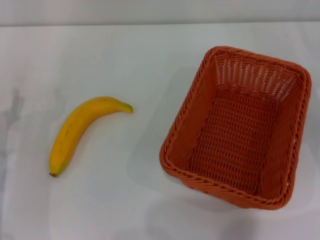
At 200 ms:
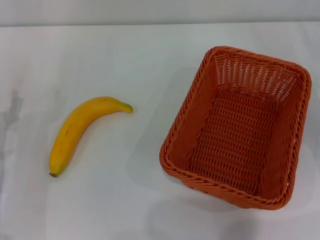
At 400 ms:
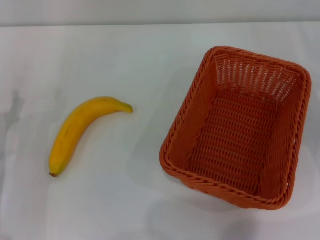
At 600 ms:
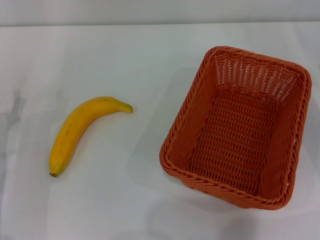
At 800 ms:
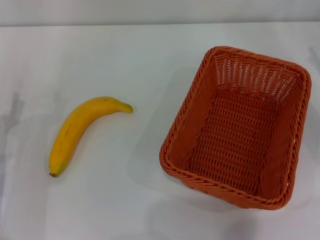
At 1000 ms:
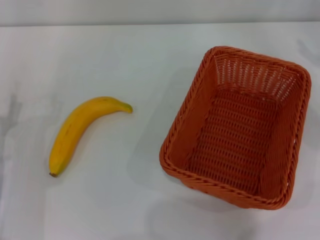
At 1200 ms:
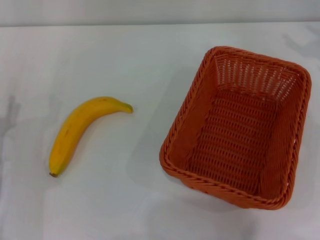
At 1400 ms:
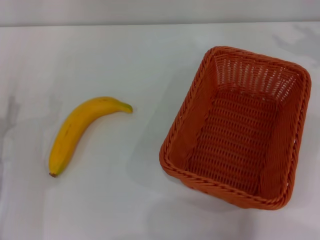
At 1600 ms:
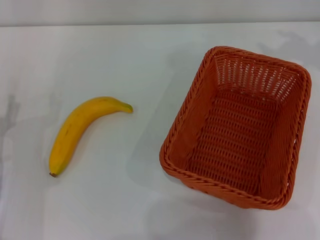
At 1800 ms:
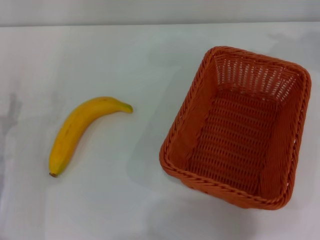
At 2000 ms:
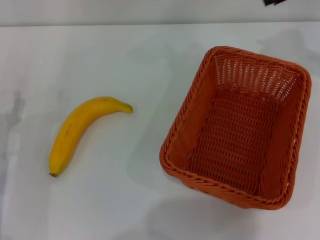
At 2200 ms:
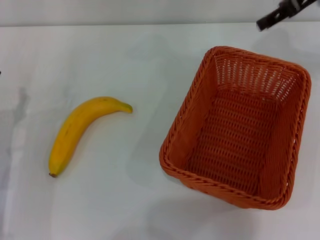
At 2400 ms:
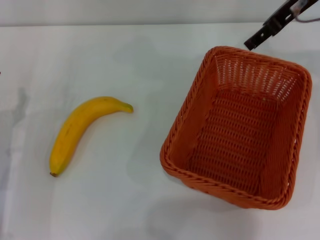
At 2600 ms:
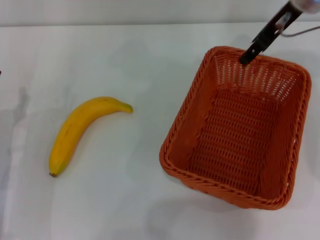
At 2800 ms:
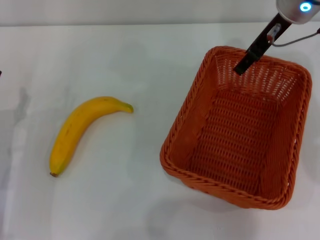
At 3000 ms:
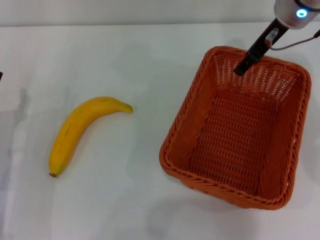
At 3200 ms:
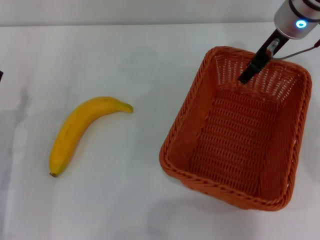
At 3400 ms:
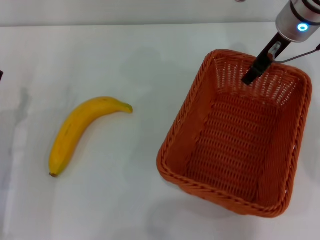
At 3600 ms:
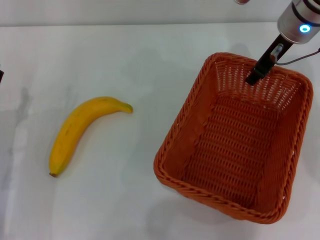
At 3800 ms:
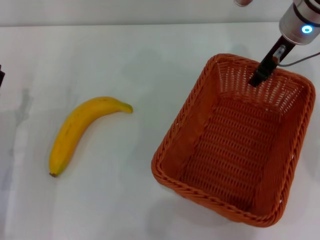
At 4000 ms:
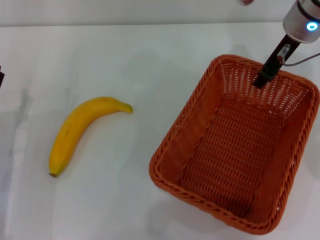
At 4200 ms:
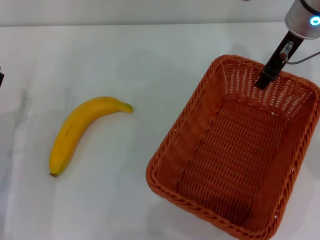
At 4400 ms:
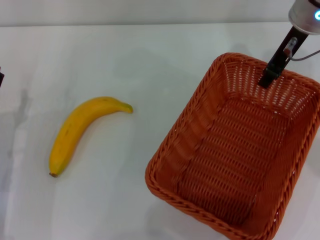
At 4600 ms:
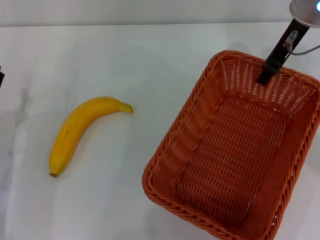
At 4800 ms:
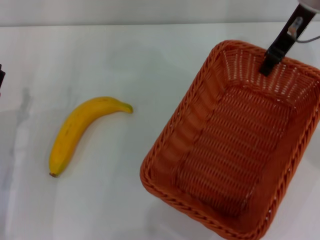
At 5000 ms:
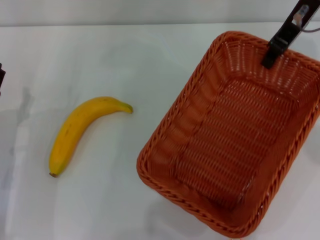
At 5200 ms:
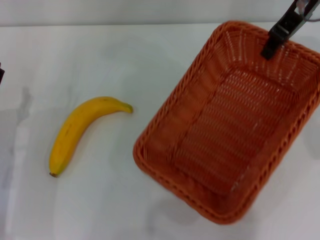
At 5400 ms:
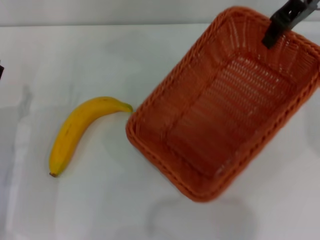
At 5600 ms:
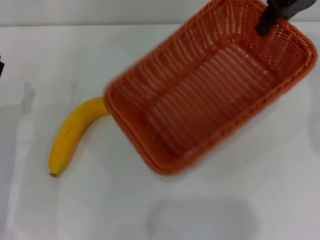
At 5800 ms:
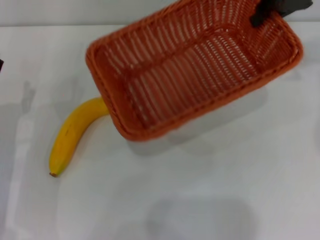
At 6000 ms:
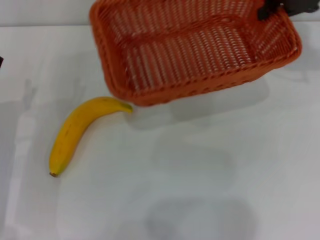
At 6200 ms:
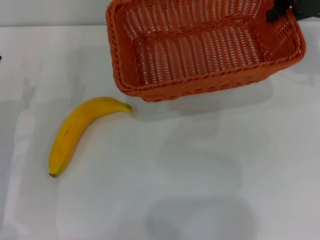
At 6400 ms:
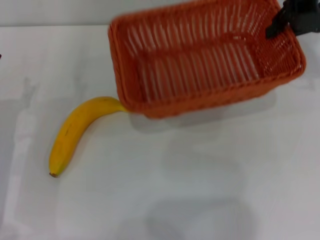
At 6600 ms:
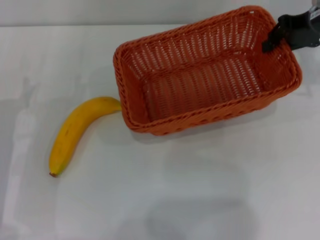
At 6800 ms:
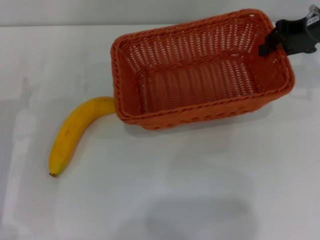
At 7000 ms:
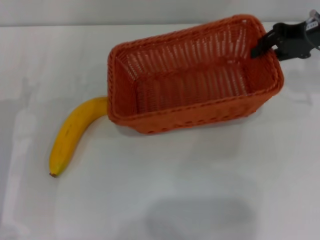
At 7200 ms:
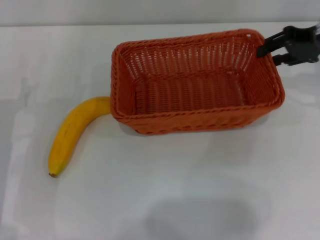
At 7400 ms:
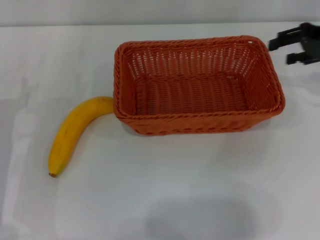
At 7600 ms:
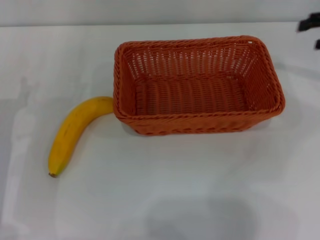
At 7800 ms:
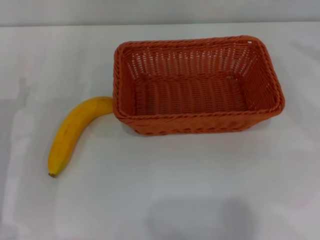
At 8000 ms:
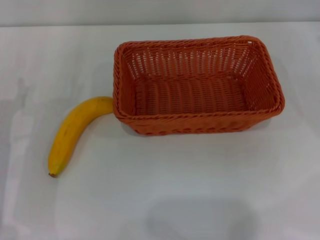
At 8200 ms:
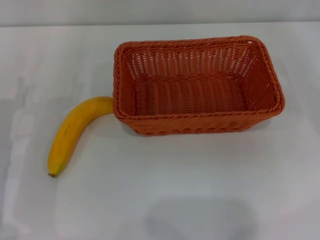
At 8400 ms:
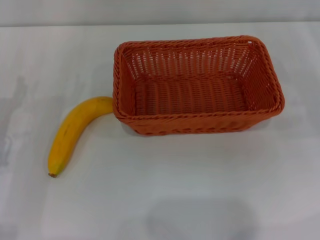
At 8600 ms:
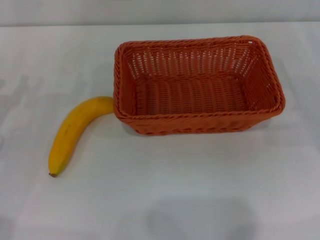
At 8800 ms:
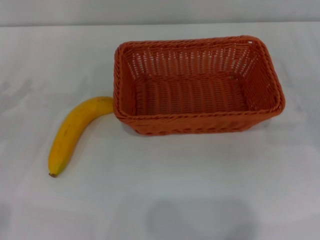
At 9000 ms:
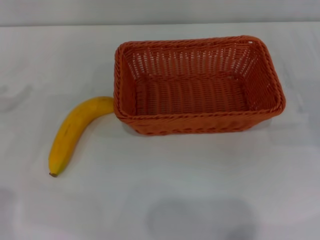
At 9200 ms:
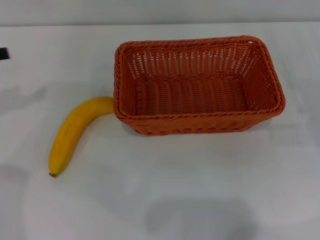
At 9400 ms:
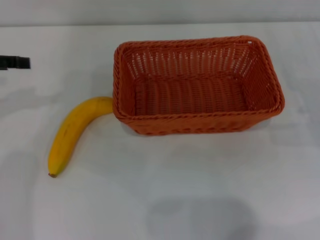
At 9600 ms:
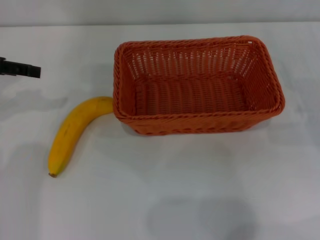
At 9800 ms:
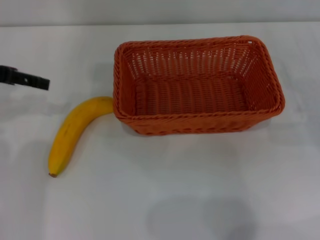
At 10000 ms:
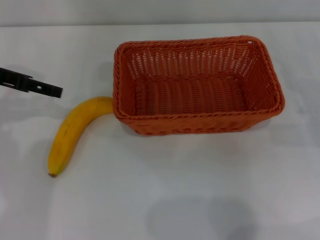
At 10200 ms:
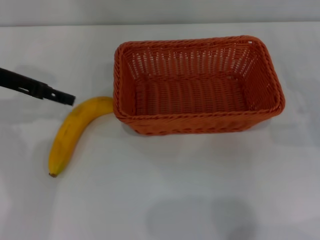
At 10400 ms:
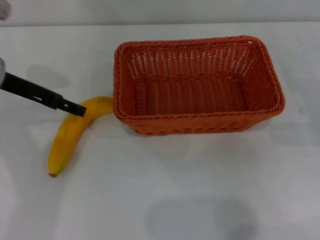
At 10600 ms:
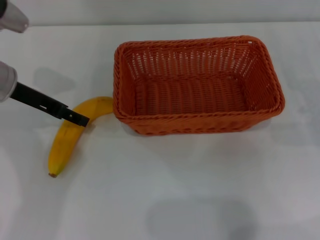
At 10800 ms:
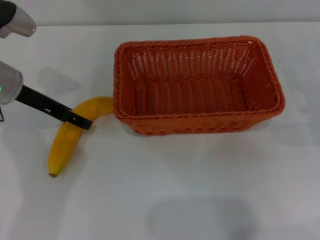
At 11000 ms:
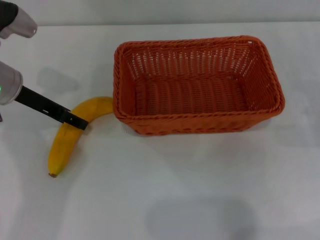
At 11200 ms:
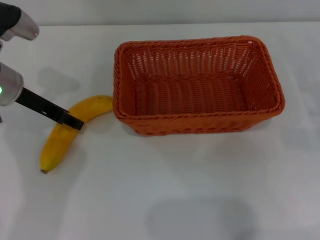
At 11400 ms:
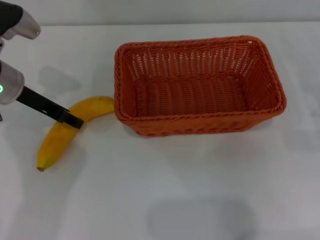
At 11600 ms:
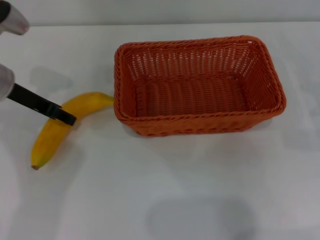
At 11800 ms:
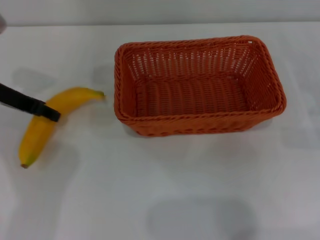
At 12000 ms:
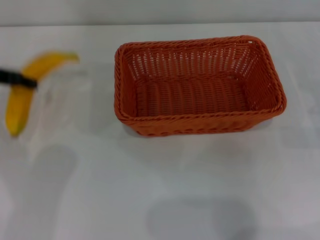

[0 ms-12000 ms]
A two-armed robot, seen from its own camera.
Step, 0 ms to 4400 ms: Pick up the light basket with the right gripper.
Step, 4600 ms to 7200 ms: Place the light basket in the center of view with the right gripper.
Step, 7400 ms to 11800 ms: Pick up the banana with the left gripper.
0 ms to 1600 ms: The right gripper shifts about 20 cm upward and forward.
1600 ms to 3000 ms: The right gripper moves to the left, some 15 cm.
3000 ms to 4400 ms: The right gripper closes its fingers.
4400 ms to 6000 ms: The right gripper goes approximately 10 cm to the right and upward.
6000 ms to 7600 ms: The right gripper shifts about 10 cm to the right and downward, and opens its fingers.
7600 ms to 9000 ms: The right gripper goes approximately 15 cm downward and backward.
9000 ms to 10400 ms: The left gripper is displaced to the right and forward by approximately 15 cm.
10400 ms to 12000 ms: The left gripper ends up roughly 5 cm from where it was, and closes up.

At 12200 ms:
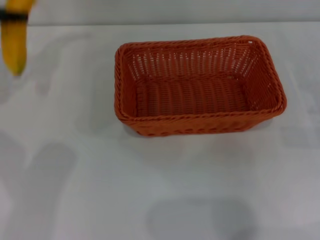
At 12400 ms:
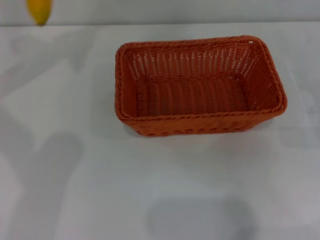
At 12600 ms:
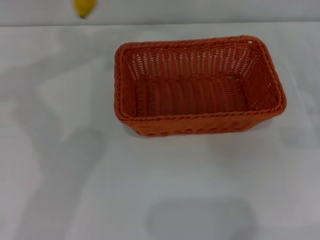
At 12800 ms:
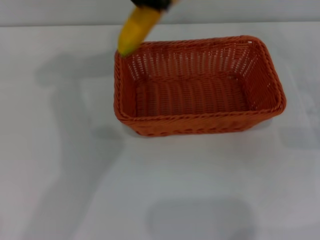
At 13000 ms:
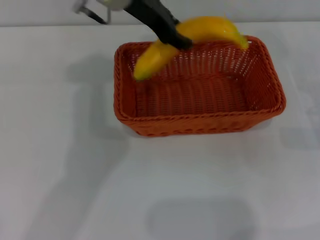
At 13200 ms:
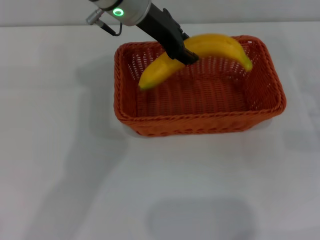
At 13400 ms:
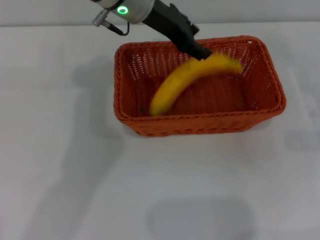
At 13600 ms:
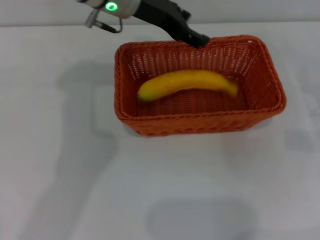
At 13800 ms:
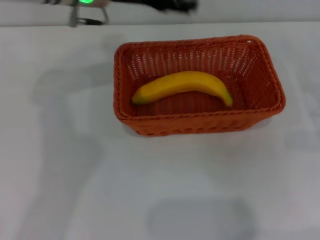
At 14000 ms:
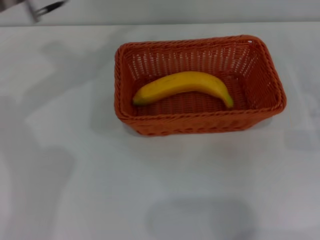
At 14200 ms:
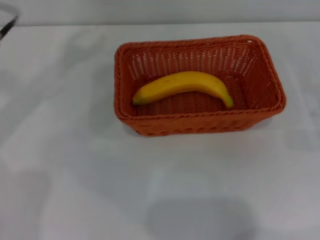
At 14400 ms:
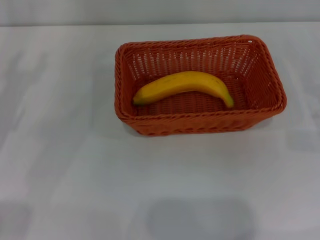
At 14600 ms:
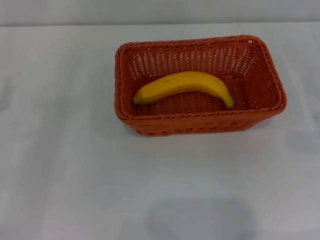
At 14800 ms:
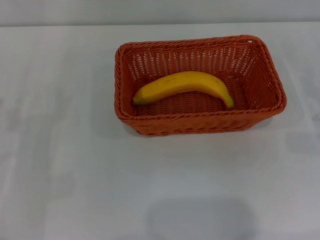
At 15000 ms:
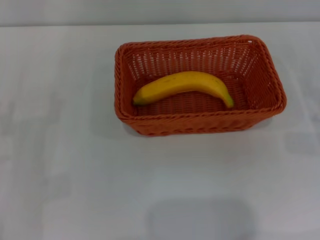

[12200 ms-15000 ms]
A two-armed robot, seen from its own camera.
Step, 12200 ms to 13400 ms: Place the banana into the light basket with the left gripper.
12200 ms to 13600 ms: The left gripper goes about 25 cm to the right, and opens.
13600 ms to 15000 ms: The left gripper moves to the left, backward and downward, approximately 35 cm, and opens.
